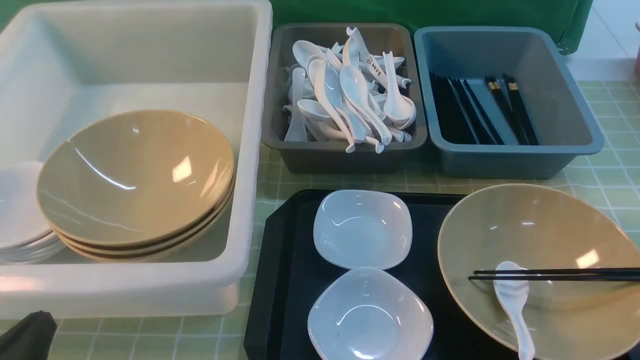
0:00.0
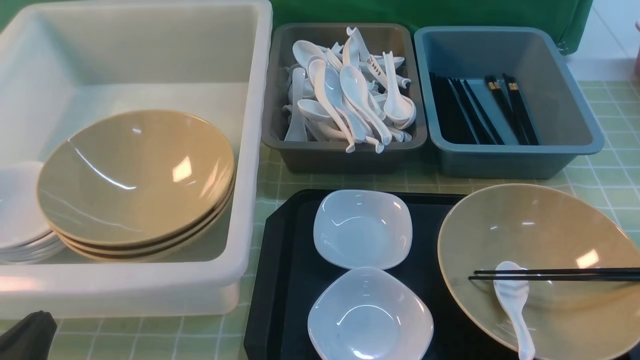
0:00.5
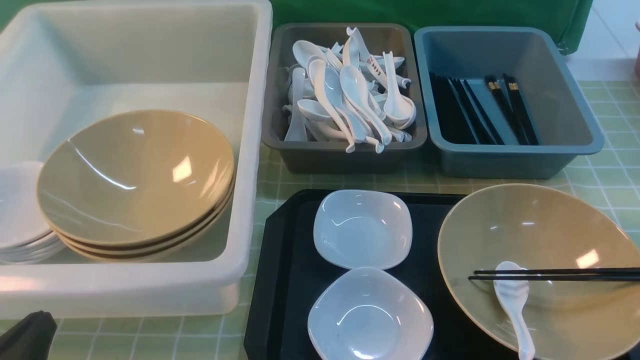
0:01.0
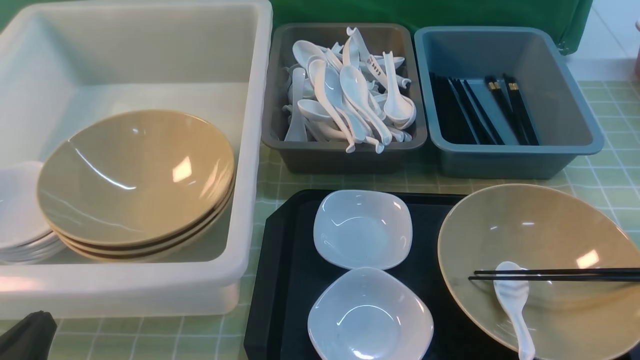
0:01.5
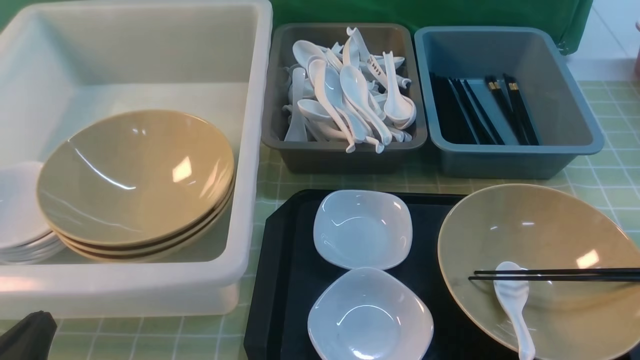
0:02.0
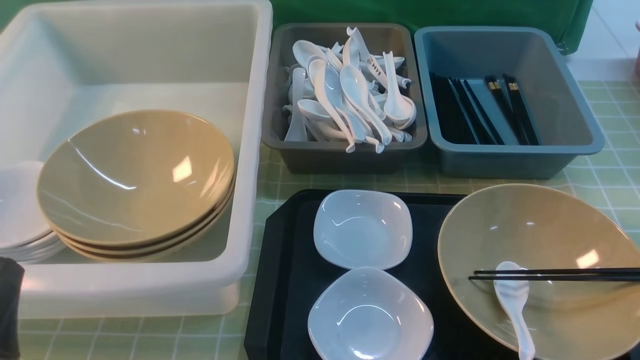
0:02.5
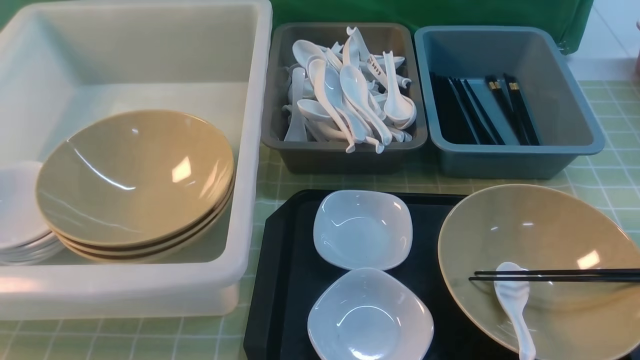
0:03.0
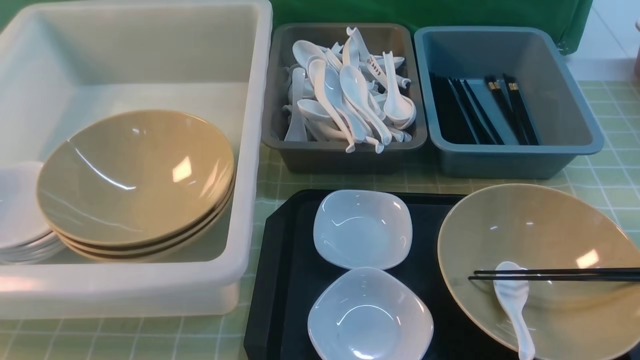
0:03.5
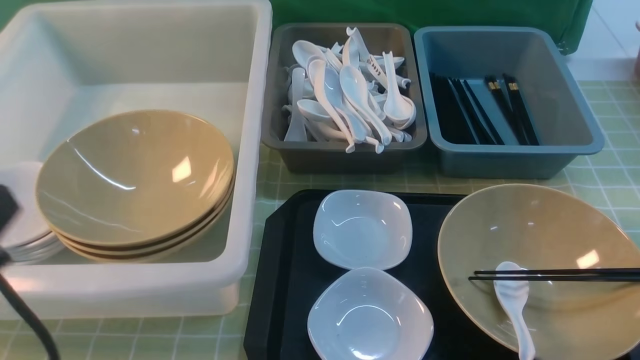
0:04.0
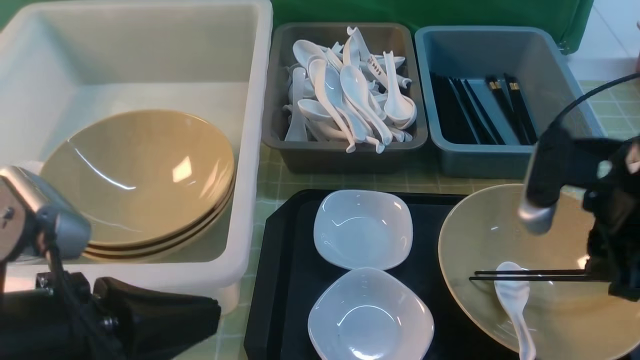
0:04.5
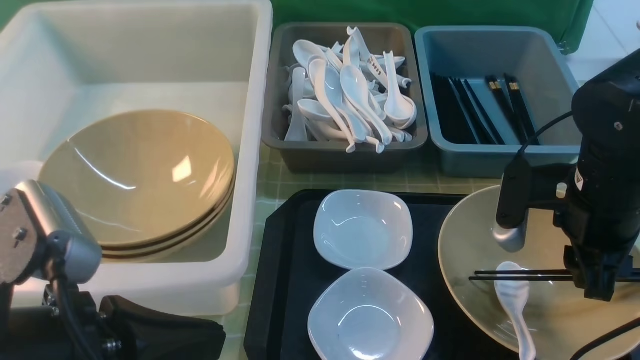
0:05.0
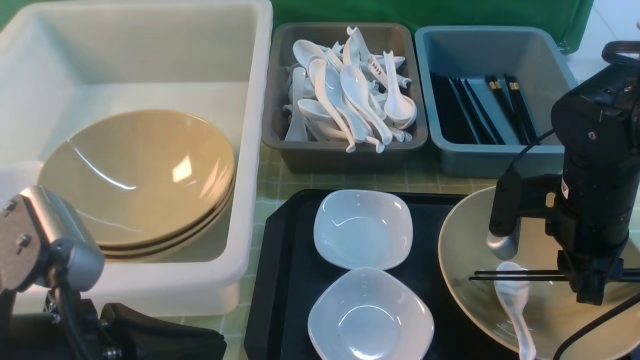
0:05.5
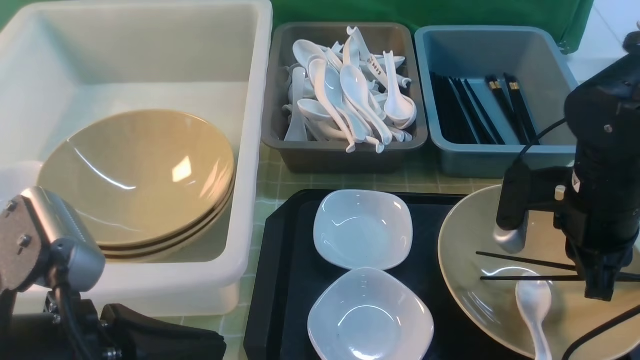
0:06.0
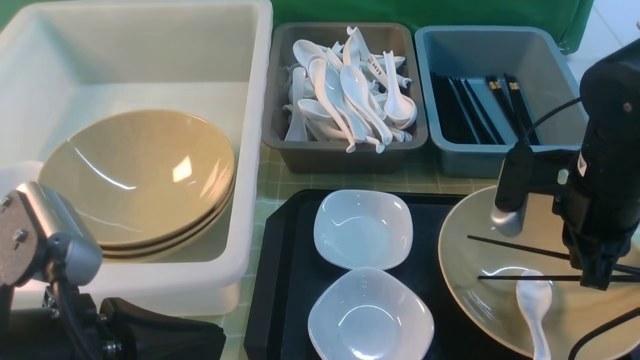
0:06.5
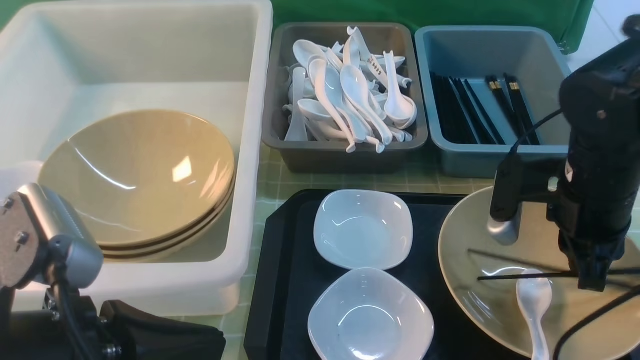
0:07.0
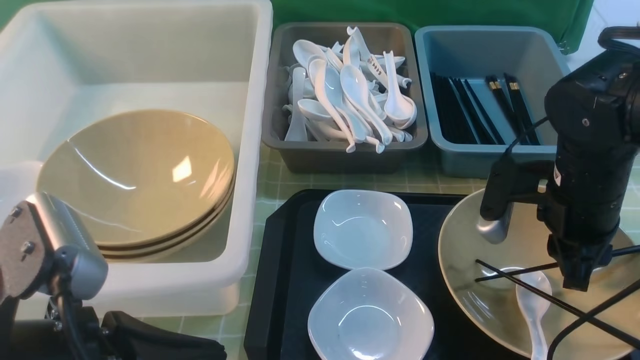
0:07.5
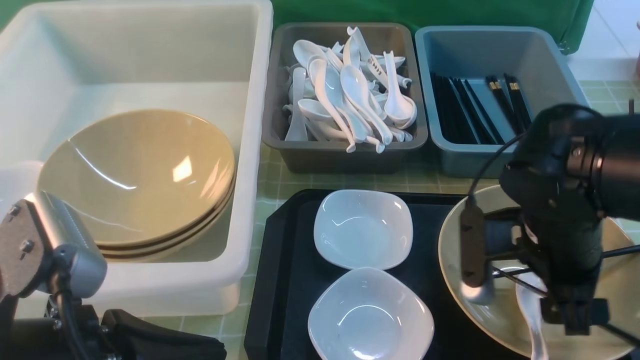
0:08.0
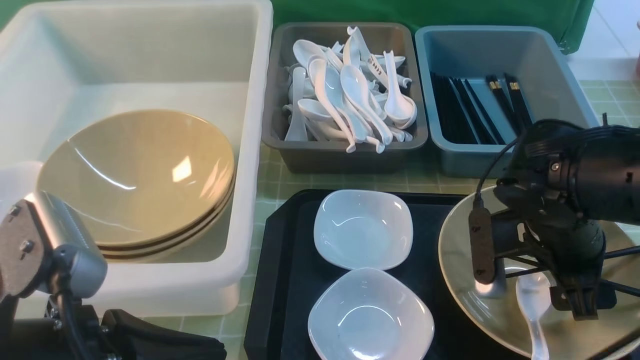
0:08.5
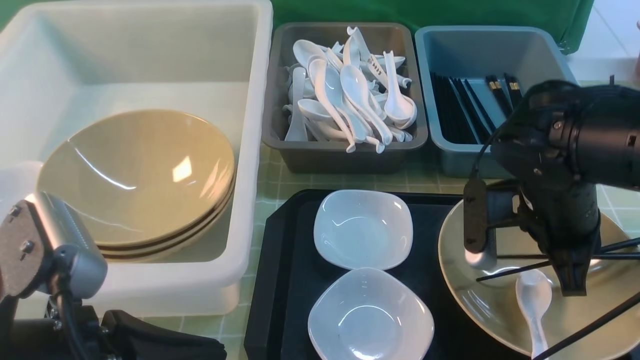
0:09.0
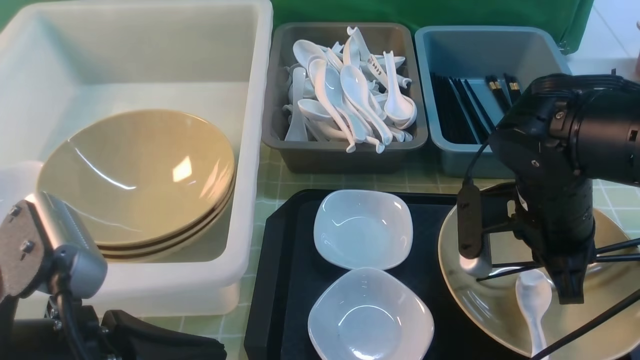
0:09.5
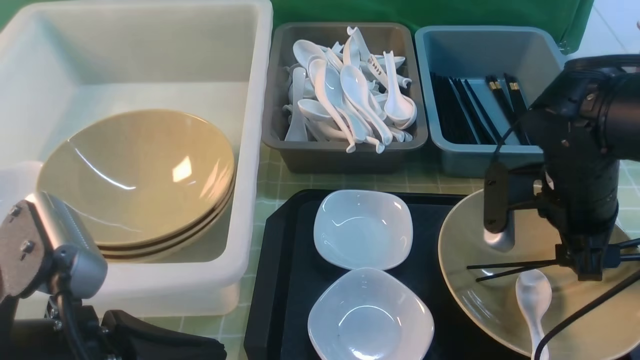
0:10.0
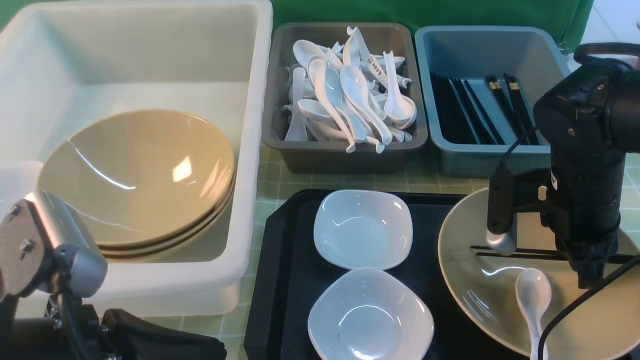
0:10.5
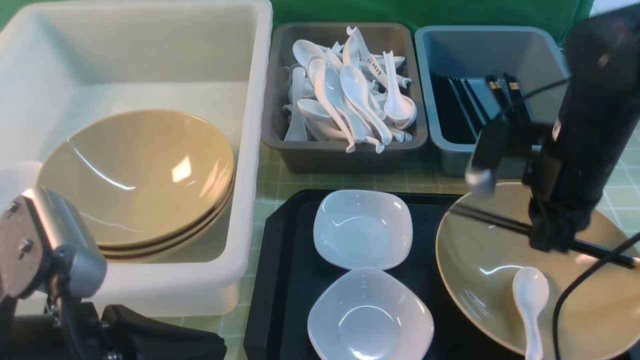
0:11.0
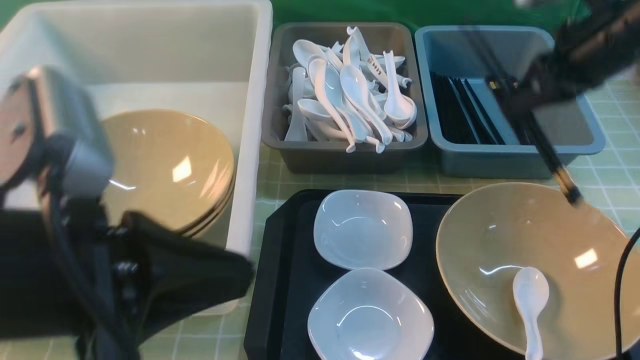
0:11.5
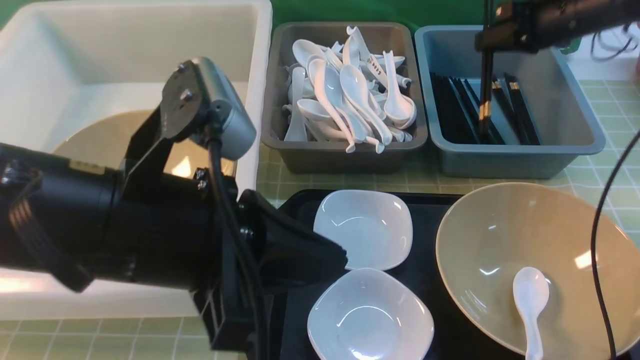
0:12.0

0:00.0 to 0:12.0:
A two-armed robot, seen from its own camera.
Task of the whole recording: on green table put chopsticks spoon bowls plates into blue grey white boxes.
Step, 0:00.0 to 0:11.0: use the right arm to grab the chopsticks.
0:00.0 to 0:02.0: Neither gripper changes place.
0:02.0 to 0:04.0: The left gripper heads upward, covering about 15 cm.
0:04.0 to 0:06.0: The left gripper travels to the right by approximately 5 cm. Meanwhile the right gripper goes some 15 cm downward, forward and to the left.
0:06.0 to 0:08.0: The right gripper shifts some 5 cm to the left, and opens its fingers.
0:08.0 to 0:10.0: The right gripper changes place by about 5 cm, and closes, then reopens.
0:10.0 to 0:12.0: The right gripper goes roughly 25 cm forward and to the right, and closes its fingers; the left gripper heads forward and to the right, covering about 10 cm.

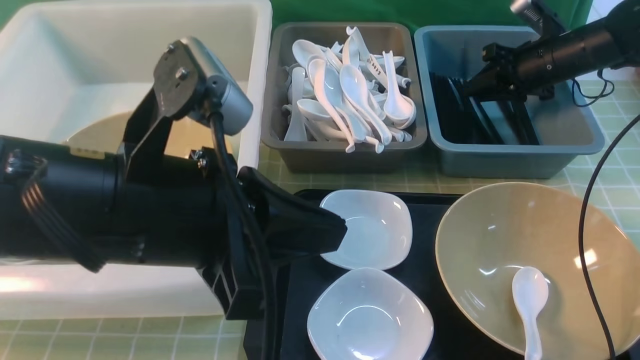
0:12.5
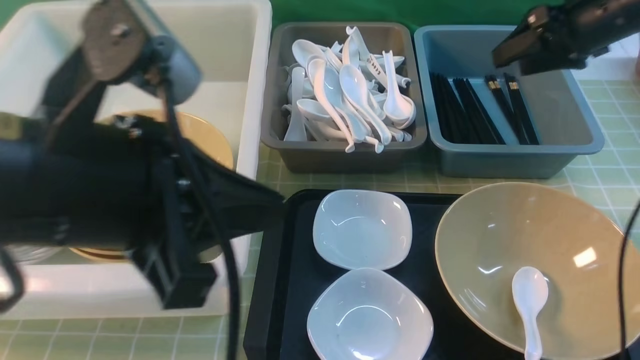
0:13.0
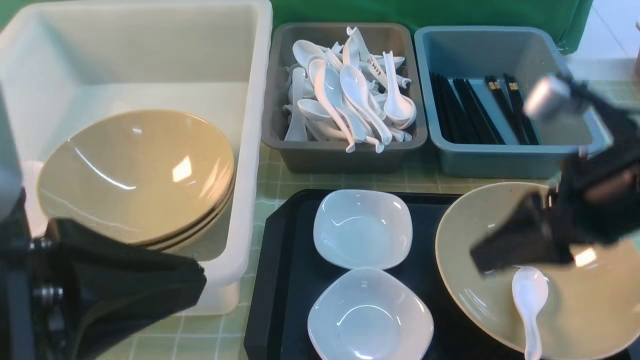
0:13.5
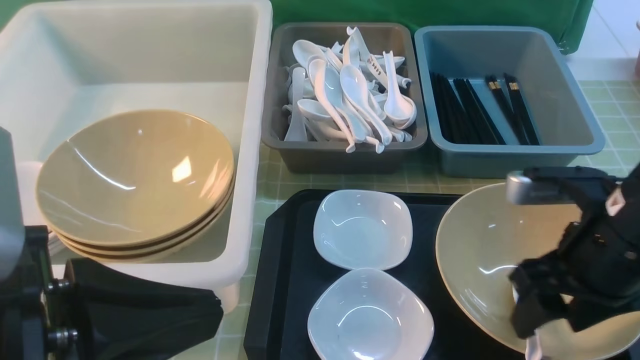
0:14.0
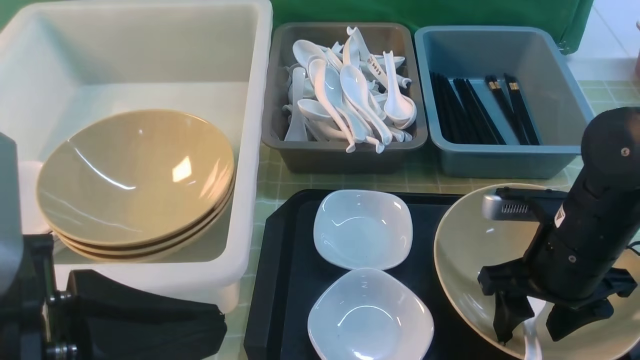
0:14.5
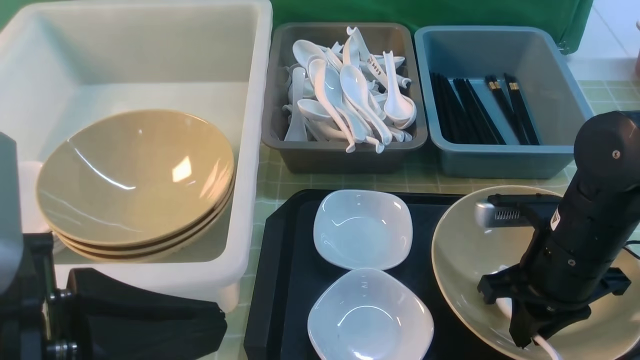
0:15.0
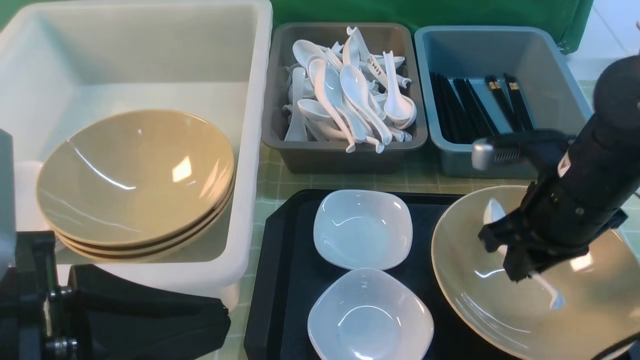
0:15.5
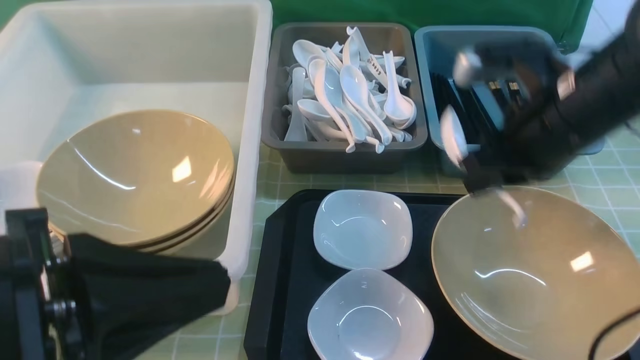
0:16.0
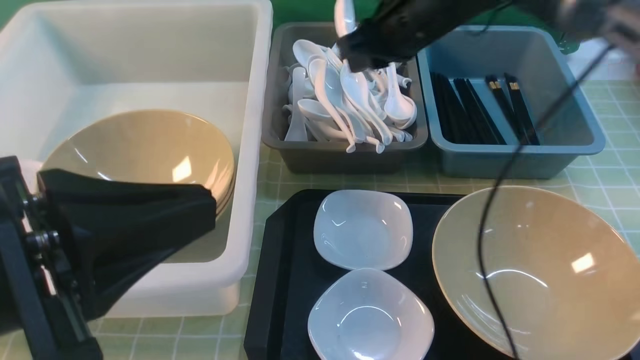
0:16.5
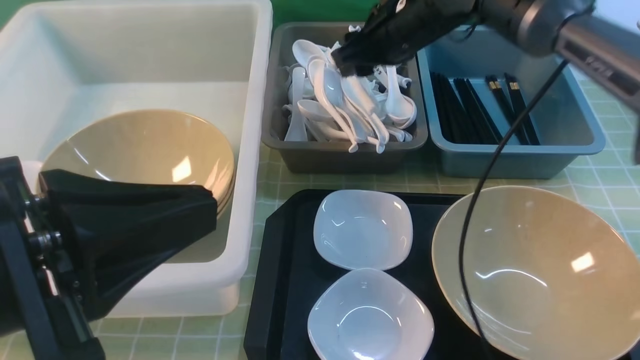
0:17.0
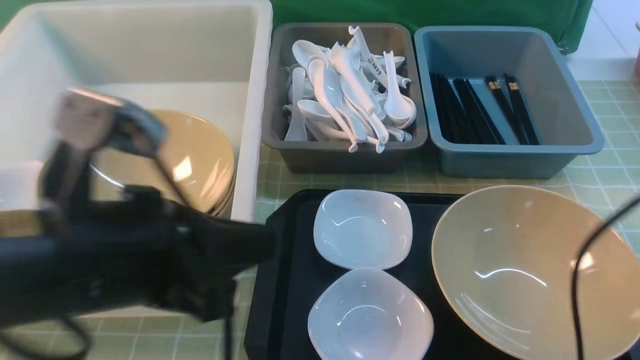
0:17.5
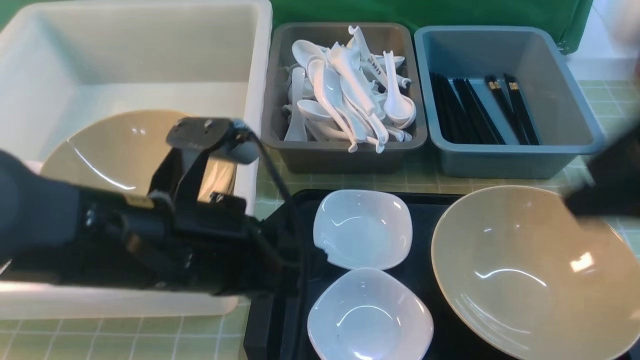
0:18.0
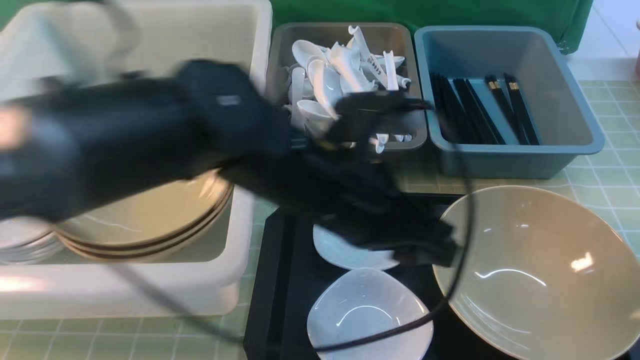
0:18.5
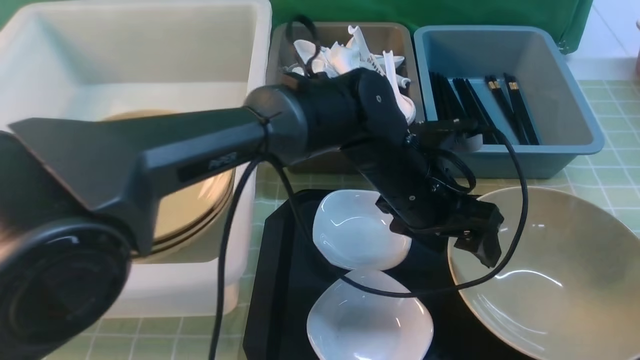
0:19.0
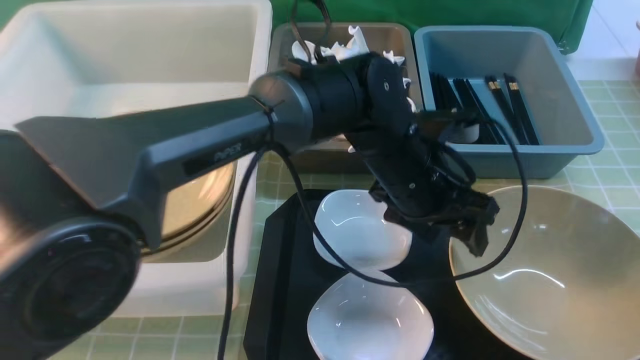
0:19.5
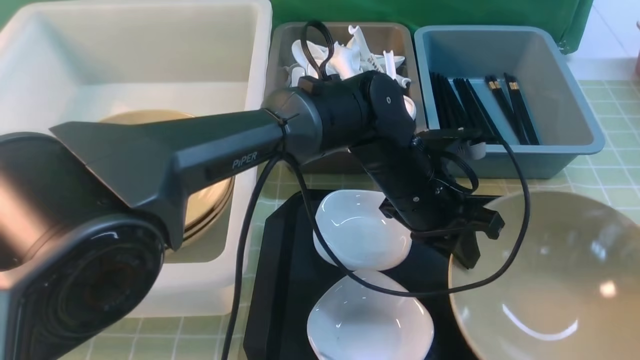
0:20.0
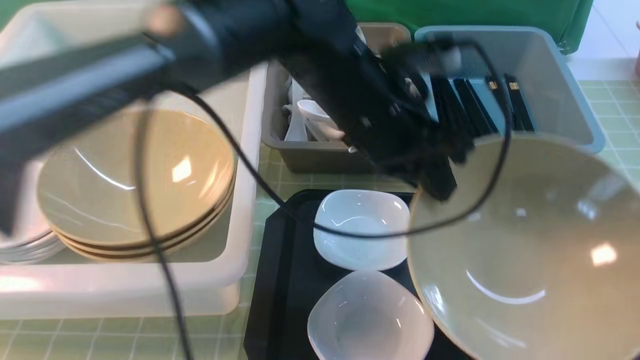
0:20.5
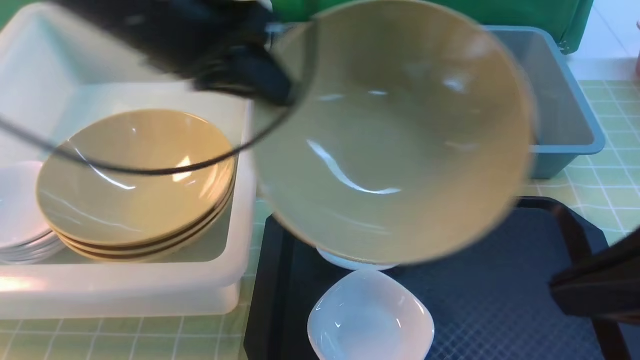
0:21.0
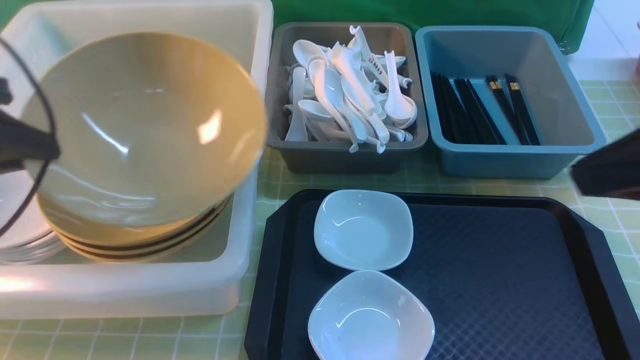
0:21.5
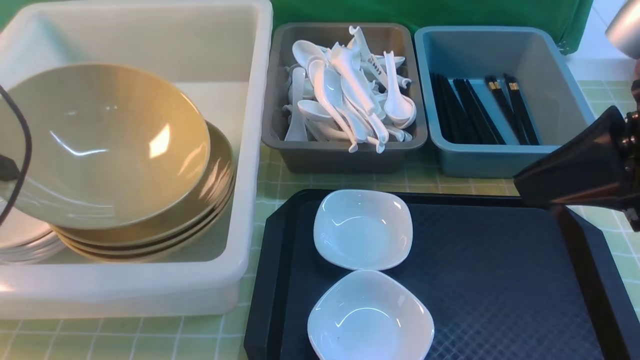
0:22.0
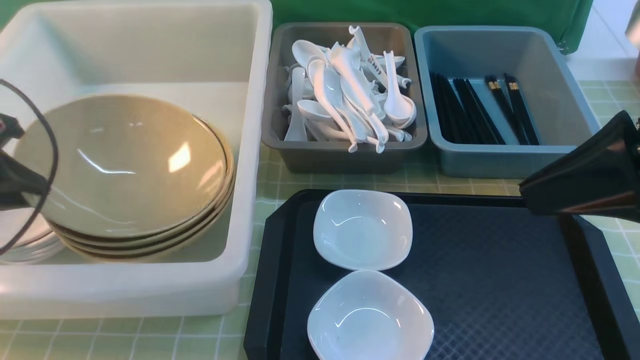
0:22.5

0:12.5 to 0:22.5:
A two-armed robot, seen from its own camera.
Task of the whole recording: on green table put chopsticks spoon bowls plates into blue grey white boxes.
Step, 0:13.5 to 0:15.5: use the right arm to grab the soup spoon in the middle.
Step, 0:16.0 to 0:17.0: use the right arm to put the soup spoon into the small storage box in the middle.
Step, 0:17.5 to 0:20.5: use the left arm to grab the yellow noodle bowl on the left.
0:12.5 to 0:14.5: The left gripper goes some 10 cm backward and to the left; the right gripper goes approximately 30 cm backward and to the left, and opens up.
0:14.5 to 0:16.5: The right gripper heads forward, upward and to the left, covering some 25 cm, and closes up.
0:16.5 to 0:18.5: The left gripper moves to the right, forward and downward, about 25 cm, and opens its fingers. The right gripper moves backward and to the right, roughly 40 cm, and opens, then closes once more.
0:18.5 to 0:20.5: The left gripper is displaced forward by roughly 5 cm, reaches about 5 cm downward, then returns, and closes.
0:20.5 to 0:22.5: The right gripper travels forward by approximately 10 cm, while the left gripper moves to the left, about 35 cm.
